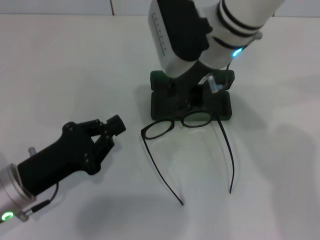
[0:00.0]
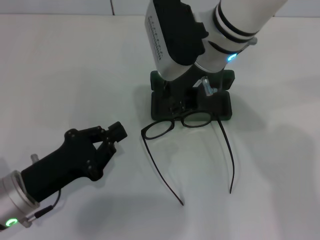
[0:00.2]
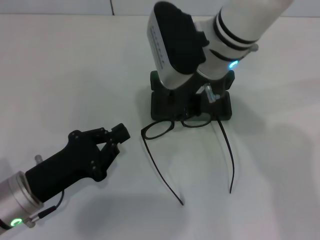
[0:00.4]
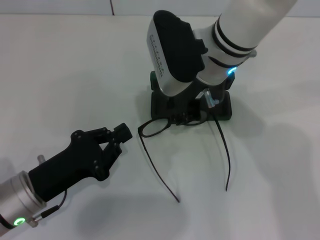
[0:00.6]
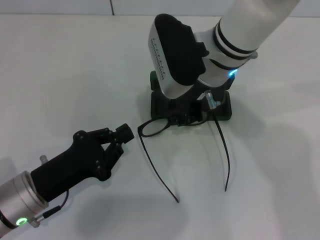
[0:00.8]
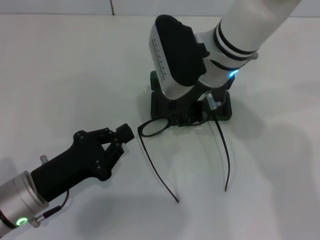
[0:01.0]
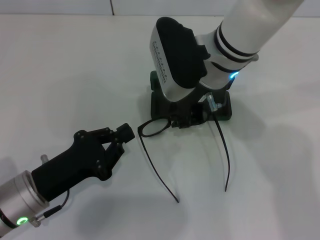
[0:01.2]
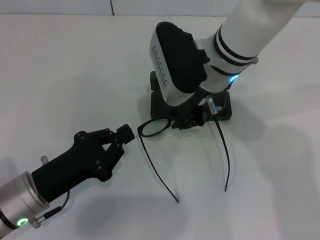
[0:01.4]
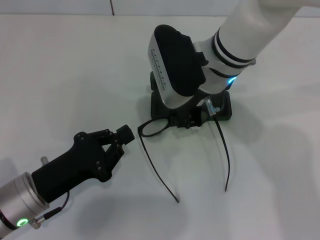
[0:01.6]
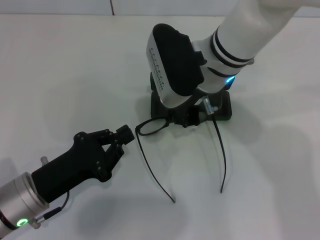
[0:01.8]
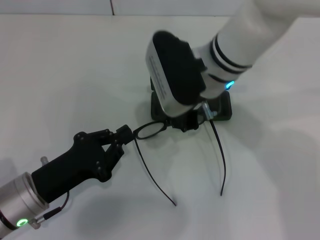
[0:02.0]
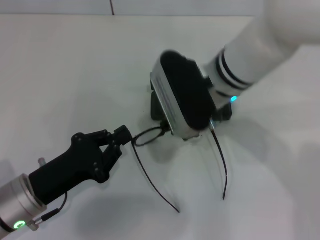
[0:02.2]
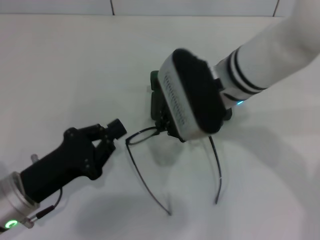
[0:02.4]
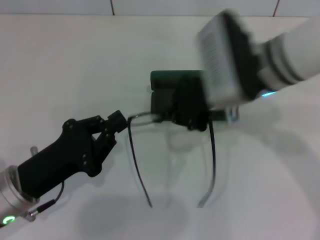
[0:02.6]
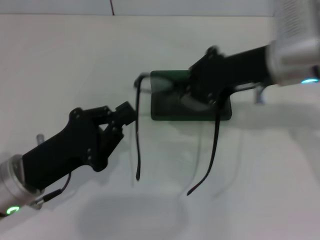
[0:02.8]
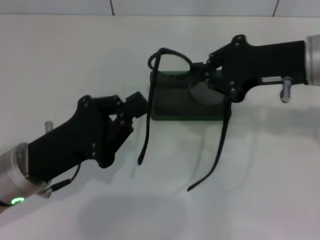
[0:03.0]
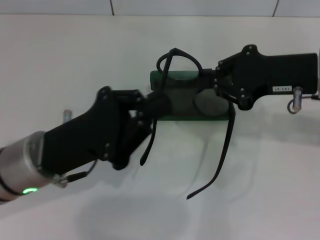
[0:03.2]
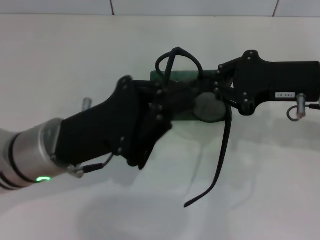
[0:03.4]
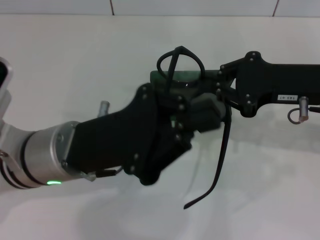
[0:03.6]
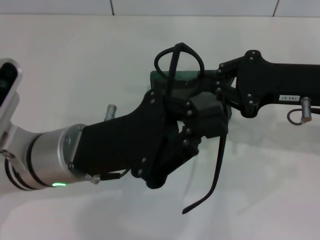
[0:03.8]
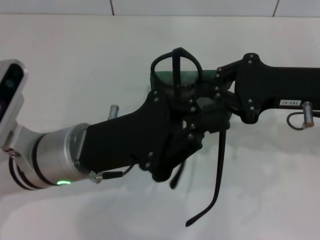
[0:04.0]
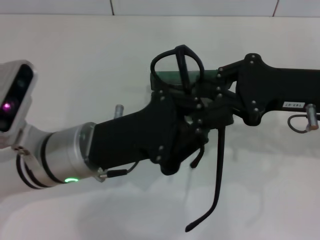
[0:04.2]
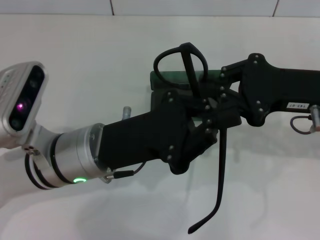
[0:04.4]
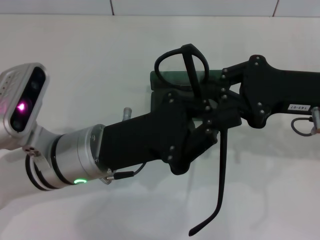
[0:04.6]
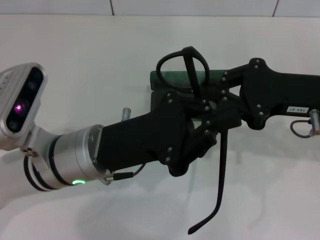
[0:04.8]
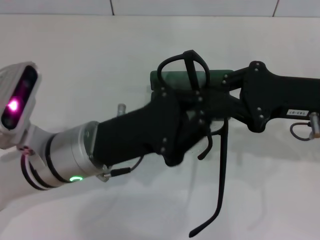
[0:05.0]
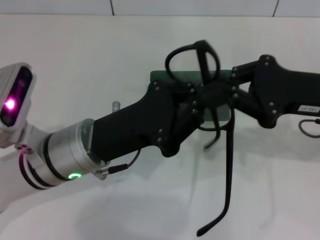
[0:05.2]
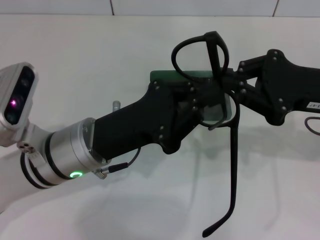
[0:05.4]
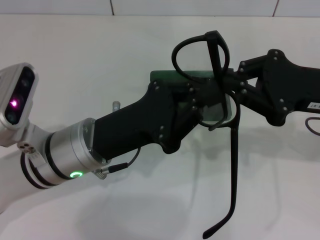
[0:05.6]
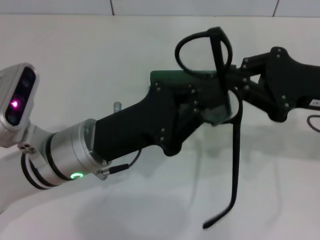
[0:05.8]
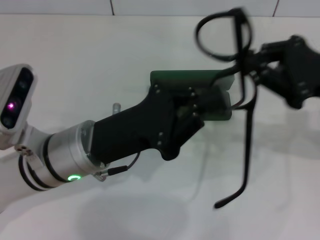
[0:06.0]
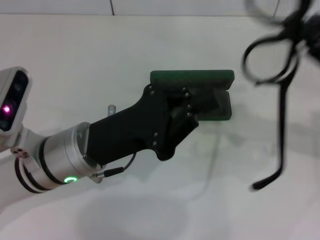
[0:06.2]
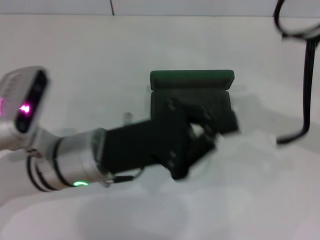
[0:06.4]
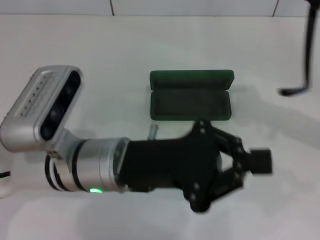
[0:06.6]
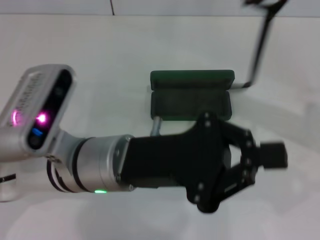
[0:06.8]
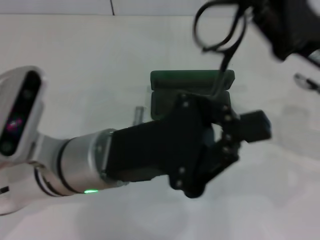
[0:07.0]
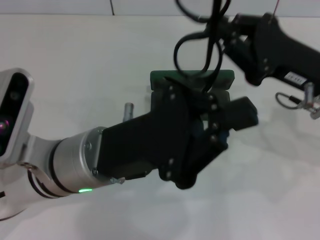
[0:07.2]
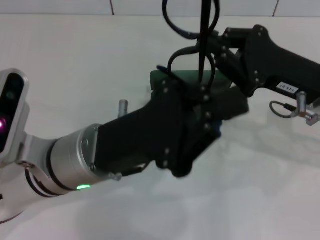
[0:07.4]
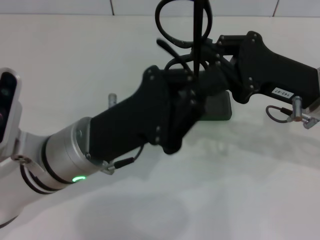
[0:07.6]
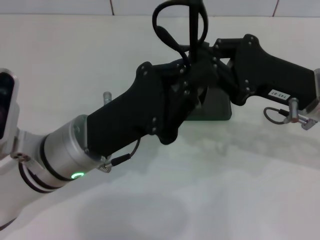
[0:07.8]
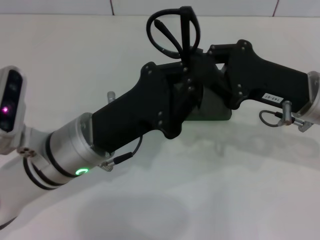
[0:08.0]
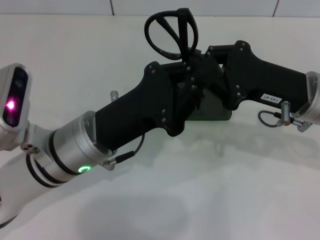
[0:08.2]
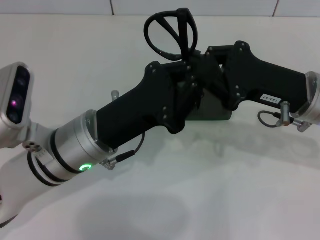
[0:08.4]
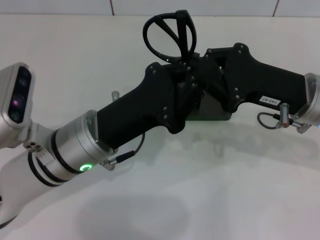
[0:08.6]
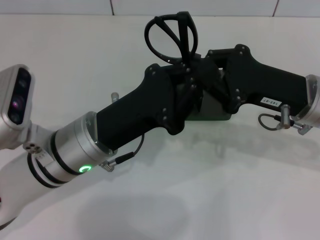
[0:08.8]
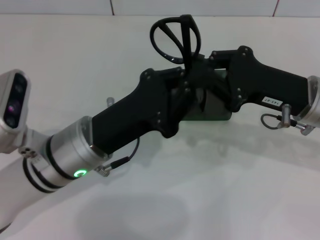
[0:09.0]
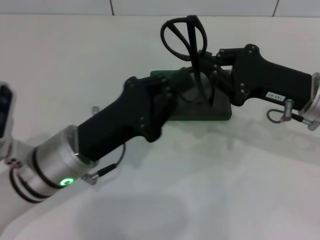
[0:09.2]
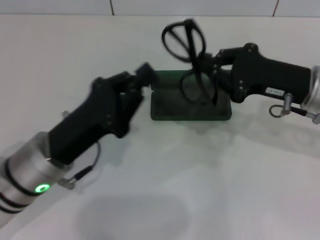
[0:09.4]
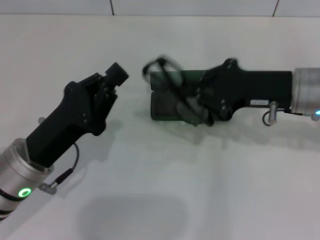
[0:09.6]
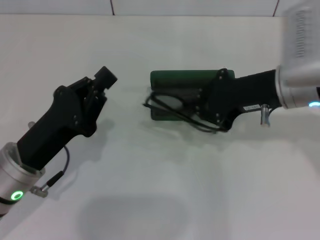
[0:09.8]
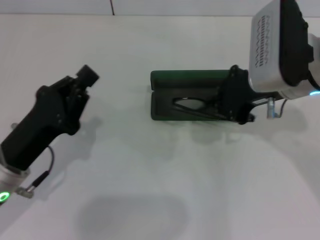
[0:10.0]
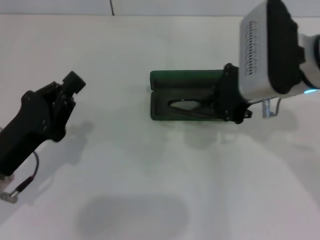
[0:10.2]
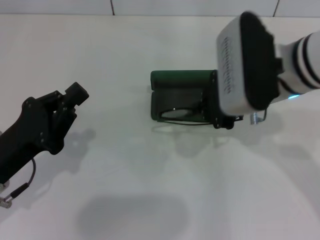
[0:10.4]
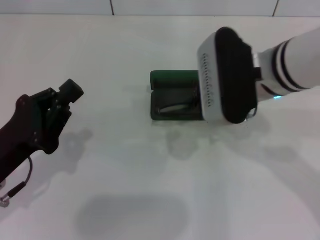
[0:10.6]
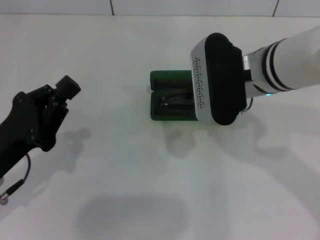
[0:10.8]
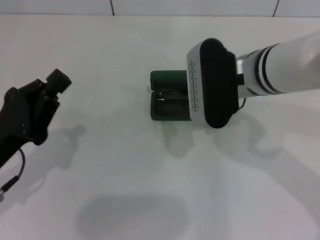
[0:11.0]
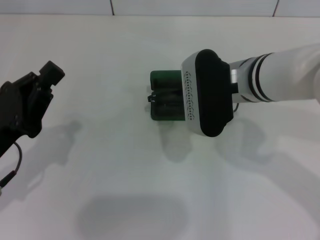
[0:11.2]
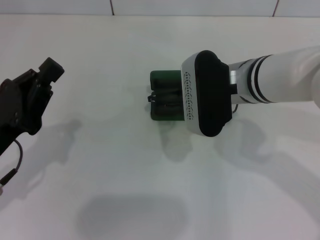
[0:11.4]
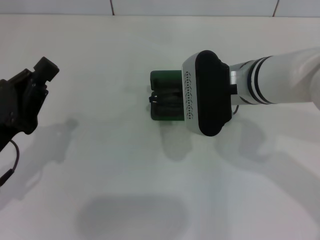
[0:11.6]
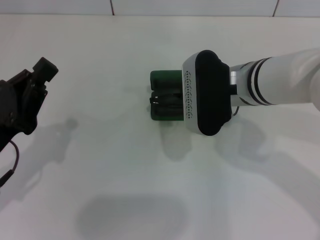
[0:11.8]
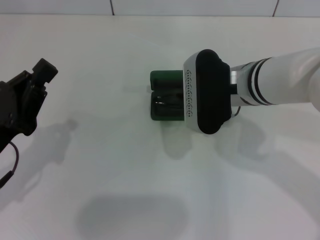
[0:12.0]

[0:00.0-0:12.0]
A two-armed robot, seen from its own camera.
Step, 0:02.0 to 0:08.6: Fold the frame with your left hand.
0:01.6 to 0:03.0: The right gripper heads to the right, covering approximately 15 cm. Meanwhile the left gripper moves upward, some 5 cm.
0:03.0 to 0:04.4: The right gripper ends up roughly 5 cm from where it was; the left gripper shifts about 10 cm to the right.
0:06.0 to 0:07.6: The right gripper travels to the left by about 5 cm.
0:07.6 to 0:09.0: There are only small adjustments of the grippers.
0:09.0 to 0:10.4: The right gripper moves to the left and upward, some 10 cm, while the left gripper is displaced to the left by approximately 10 cm.
0:10.4 to 0:12.0: The right gripper is displaced downward by approximately 5 cm.

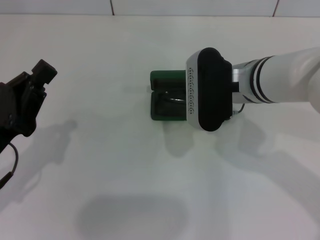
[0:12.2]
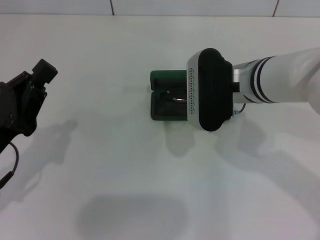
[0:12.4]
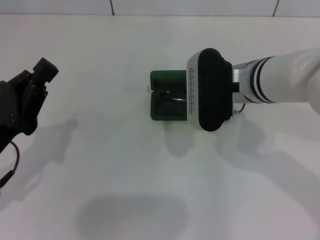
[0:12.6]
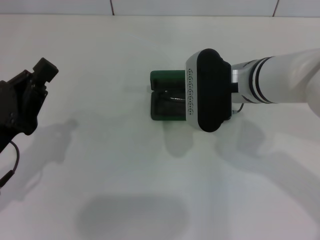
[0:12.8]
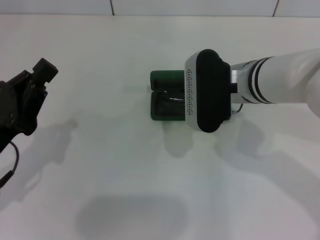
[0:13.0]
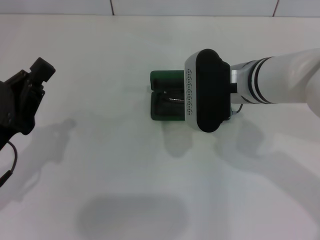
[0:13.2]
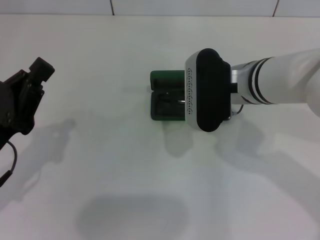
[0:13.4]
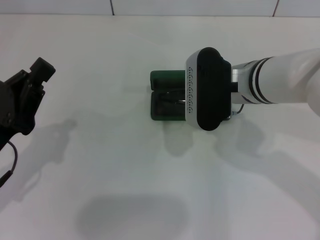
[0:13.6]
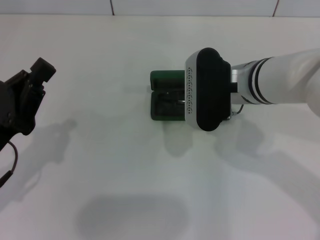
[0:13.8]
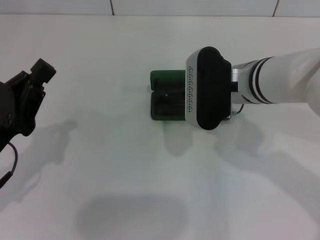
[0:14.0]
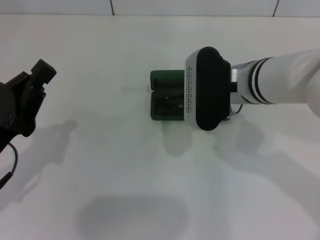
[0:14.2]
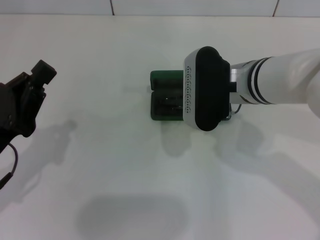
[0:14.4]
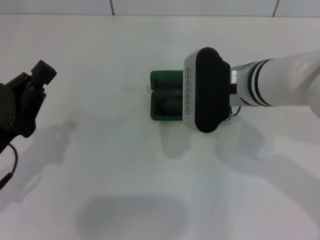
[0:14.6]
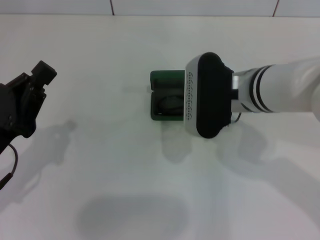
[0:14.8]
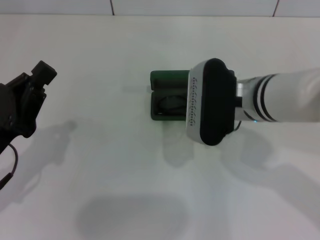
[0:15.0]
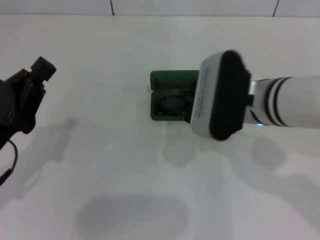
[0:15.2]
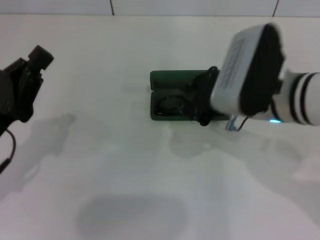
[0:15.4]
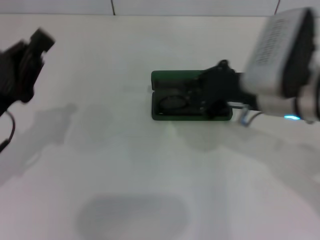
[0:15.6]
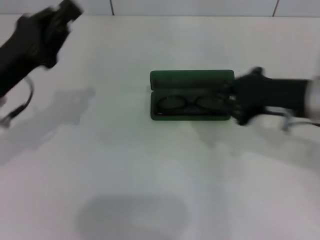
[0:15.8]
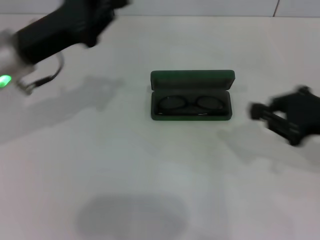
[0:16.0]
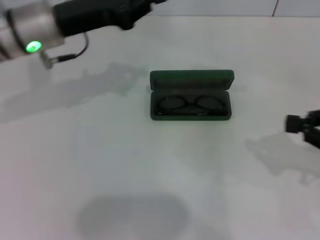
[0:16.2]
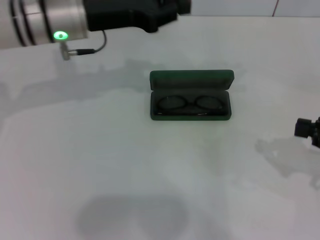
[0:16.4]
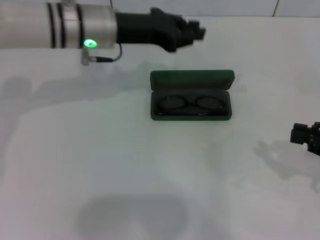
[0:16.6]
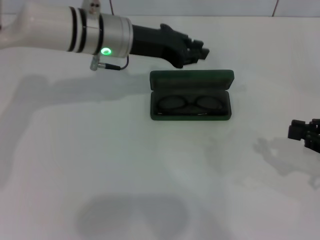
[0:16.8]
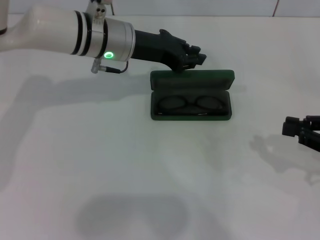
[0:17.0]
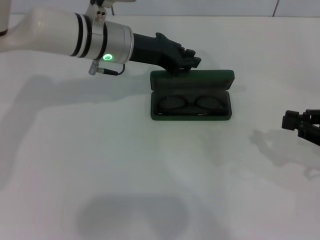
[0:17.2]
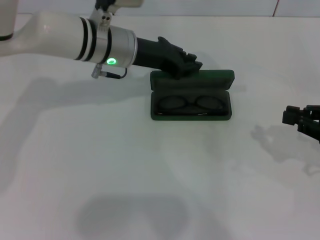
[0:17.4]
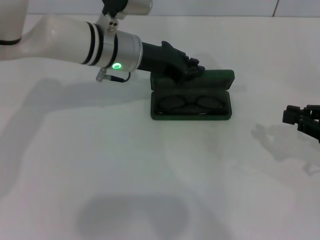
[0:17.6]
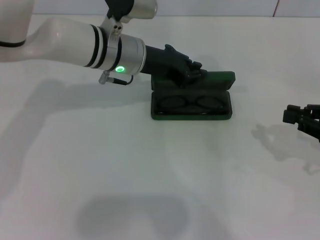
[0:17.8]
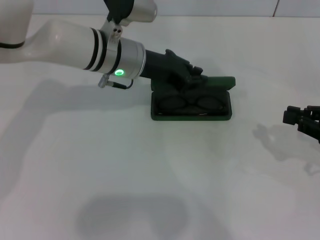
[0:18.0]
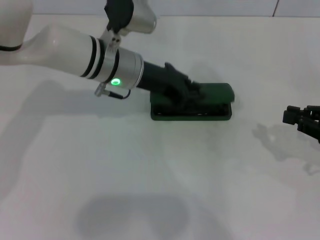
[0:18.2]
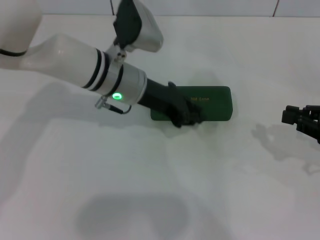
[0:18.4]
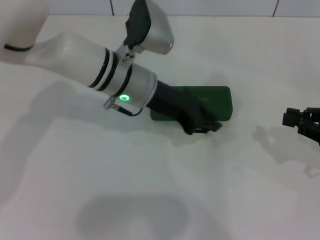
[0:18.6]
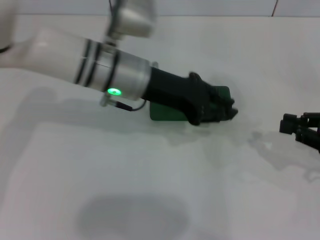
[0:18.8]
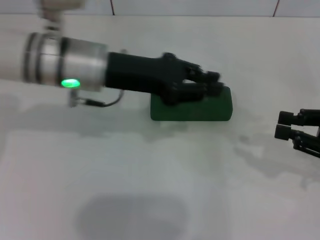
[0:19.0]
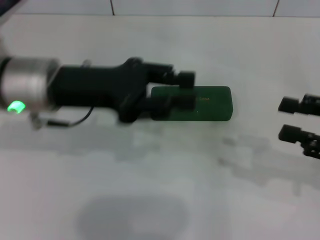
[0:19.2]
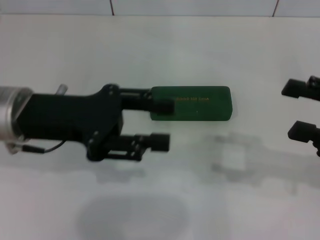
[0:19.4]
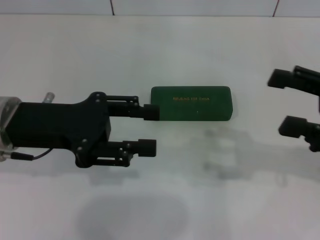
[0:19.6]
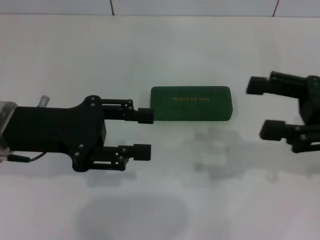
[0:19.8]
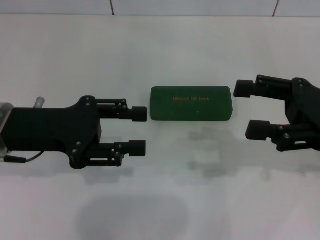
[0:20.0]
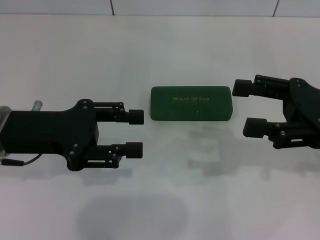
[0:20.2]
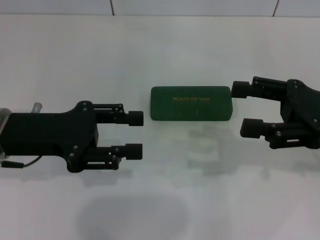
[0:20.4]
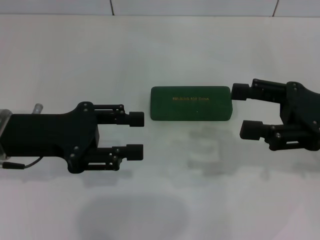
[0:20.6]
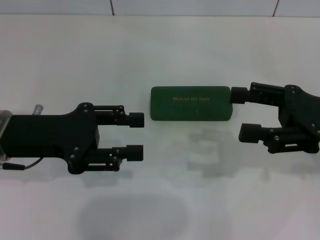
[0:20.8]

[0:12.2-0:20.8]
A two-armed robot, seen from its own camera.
Step, 0:12.2 to 0:14.4: Put the glasses into the case with your right hand.
Step, 0:14.6 to 0:18.2: Close the glasses case with your left hand.
0:12.2 to 0:13.6: Both grippers stay about where they are.
0:13.6 to 0:15.0: There are only small adjustments of the grippers.
0:15.0 to 0:16.6: The left gripper goes about 25 cm forward and to the right; the right gripper shifts approximately 25 cm to the right.
0:16.6 to 0:18.0: The left gripper ends up roughly 5 cm from where it was.
0:18.0 to 0:19.4: The left gripper moves backward and to the left, roughly 15 cm; the right gripper shifts by approximately 5 cm, and opens up.
0:19.4 to 0:20.8: The right gripper moves about 5 cm.

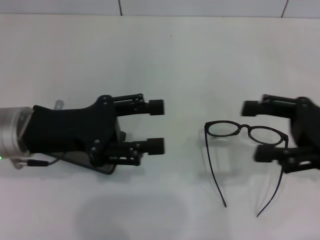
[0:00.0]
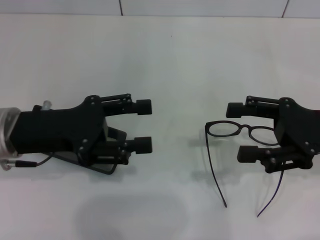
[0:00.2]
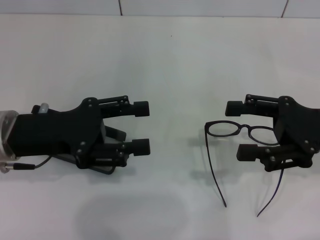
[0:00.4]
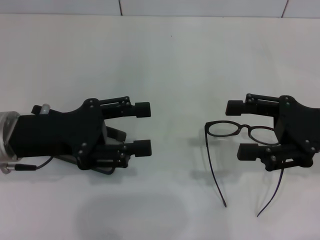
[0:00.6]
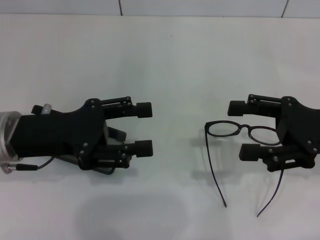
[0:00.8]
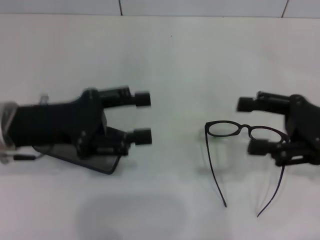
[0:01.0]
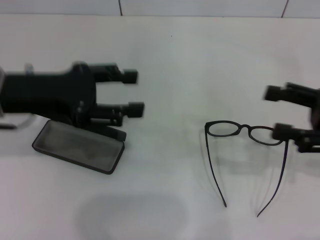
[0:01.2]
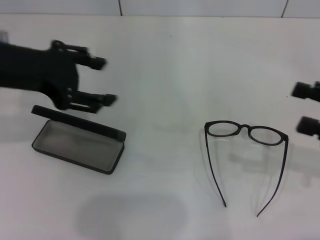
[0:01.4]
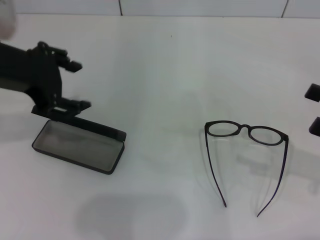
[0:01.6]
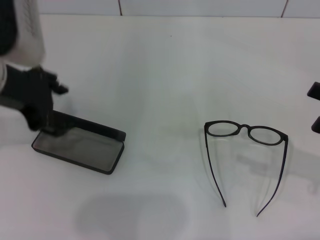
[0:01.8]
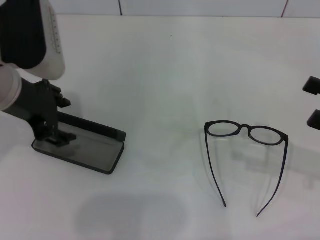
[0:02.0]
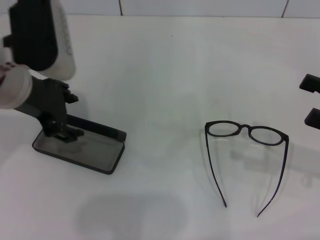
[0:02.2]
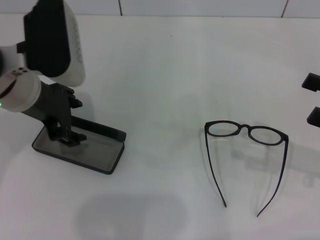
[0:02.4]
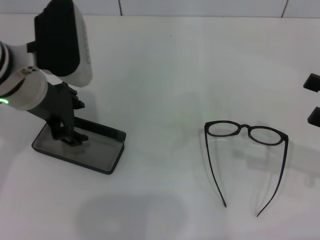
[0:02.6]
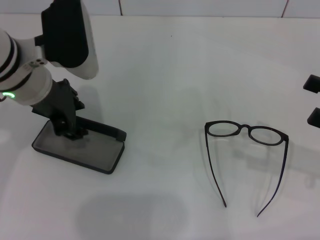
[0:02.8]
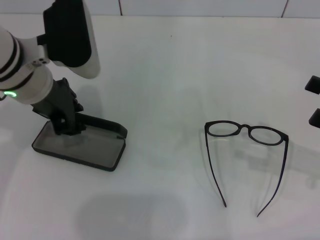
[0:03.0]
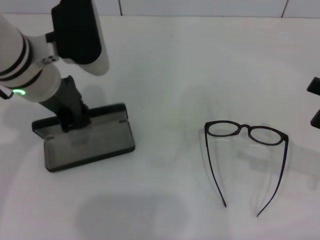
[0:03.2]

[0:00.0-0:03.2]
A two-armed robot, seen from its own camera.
Step, 0:00.0 to 0:03.2: Grab the glasses case with your left hand.
0:00.0 to 0:01.6: The left gripper heads upward, covering approximately 10 cm. The right gripper moves to the right, roughly 5 cm.
0:01.6 to 0:03.2: The left gripper goes approximately 10 cm to the right and downward, and closes.
